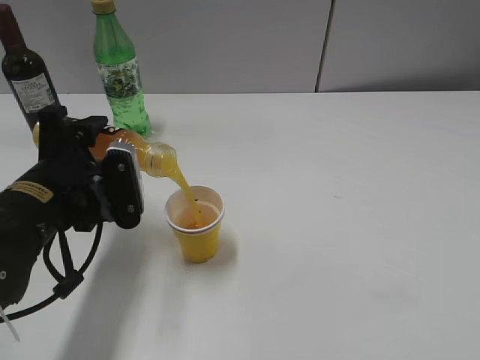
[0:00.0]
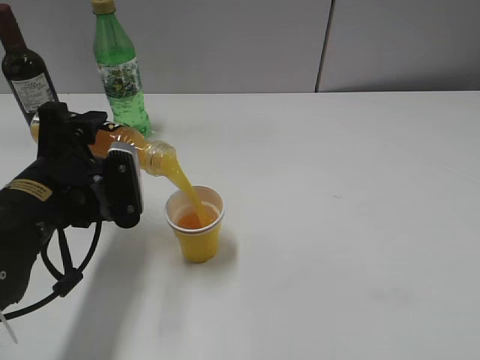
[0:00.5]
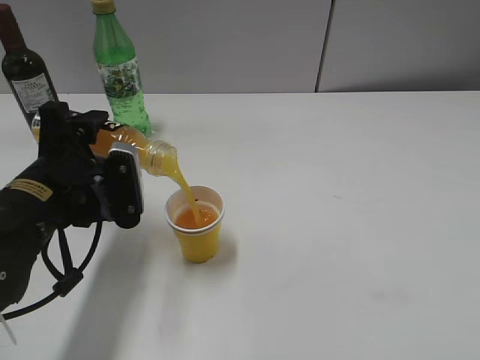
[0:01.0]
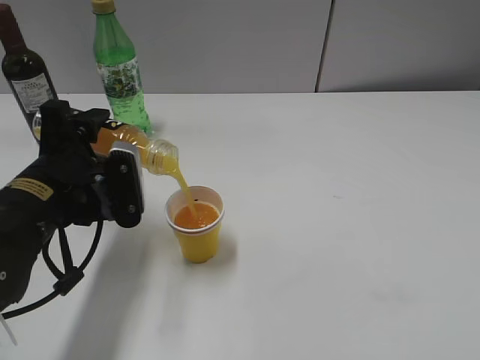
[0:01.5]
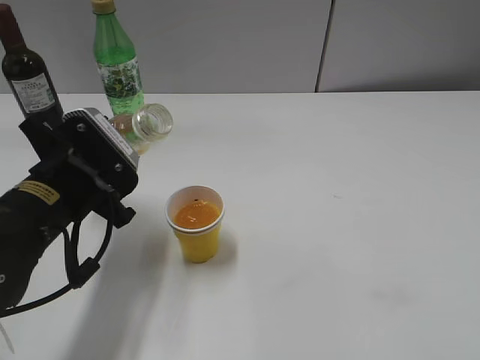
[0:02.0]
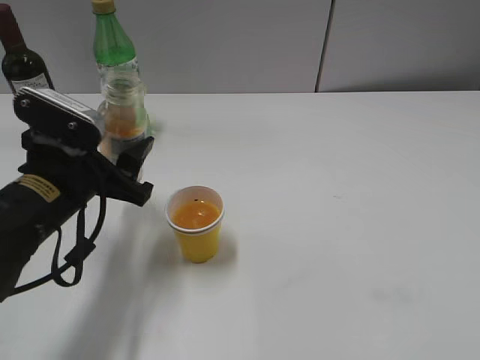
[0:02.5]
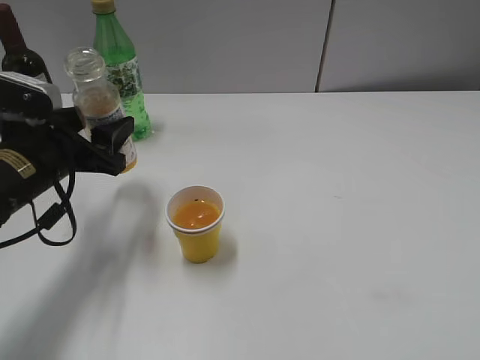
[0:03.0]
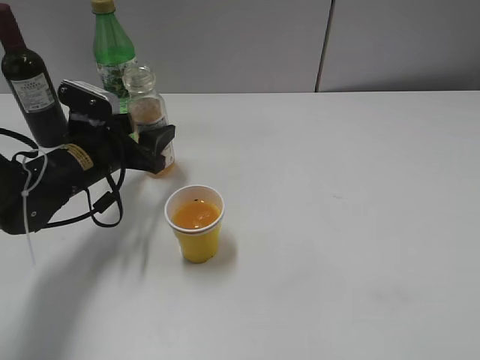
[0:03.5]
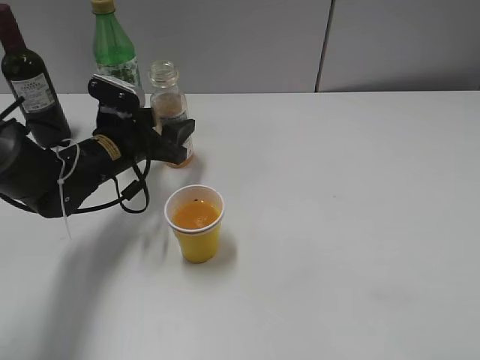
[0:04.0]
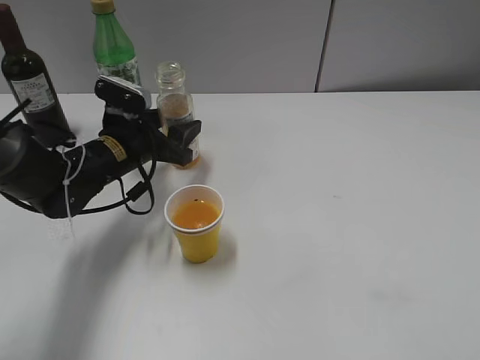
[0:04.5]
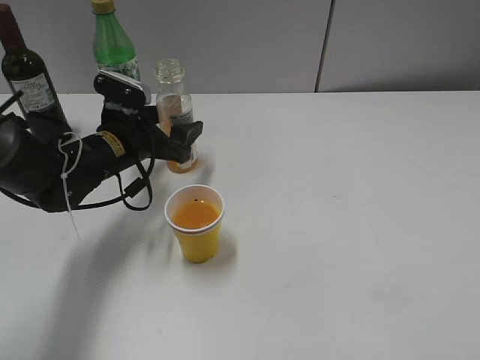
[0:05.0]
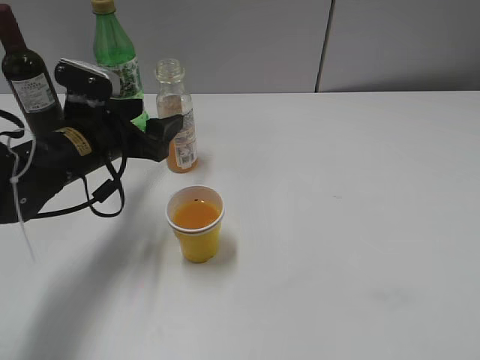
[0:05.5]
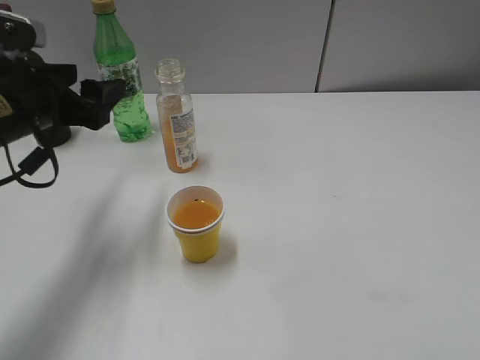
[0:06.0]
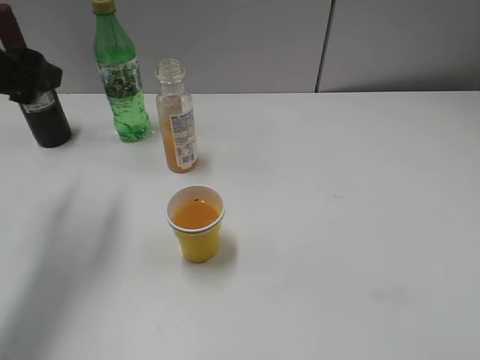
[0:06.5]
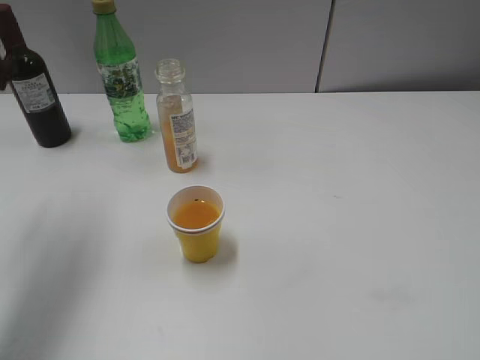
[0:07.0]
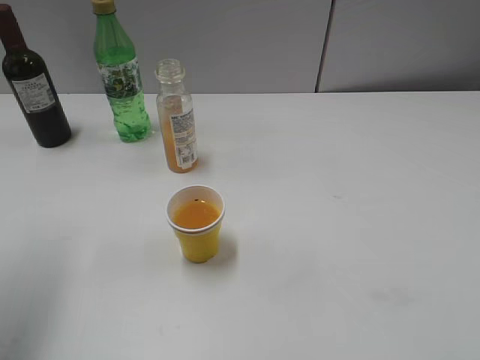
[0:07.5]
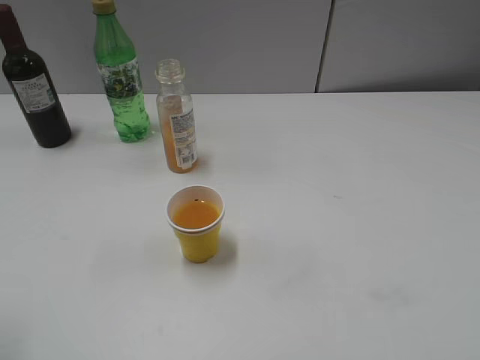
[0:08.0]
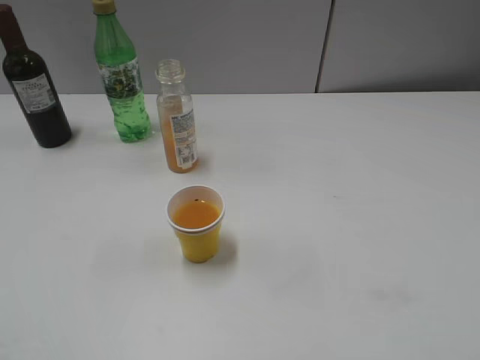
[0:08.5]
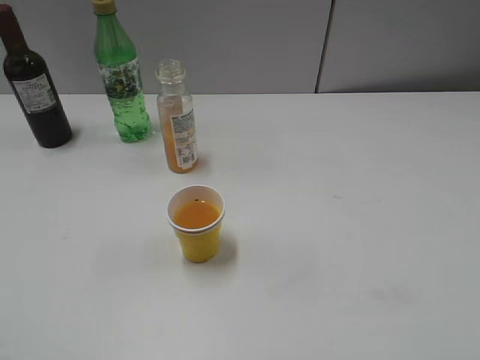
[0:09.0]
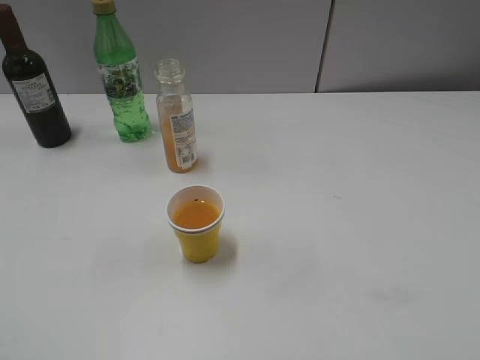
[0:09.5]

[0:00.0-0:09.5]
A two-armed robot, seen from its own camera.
Step, 0:00.0 to 0:02.0: Pour the orange juice from bottle to cup with left gripper.
Step, 0:02.5 to 0:05.0: Place the orange juice bottle on the table with left gripper.
0:02.0 to 0:04.0: The left gripper is displaced forward by approximately 15 cm.
0:04.0 to 0:05.5: The left gripper shifts by some 5 cm, and opens its fingers.
0:05.5 to 0:07.5: The left gripper is displaced upward, backward and to the left by about 25 cm.
0:07.5 to 0:09.5: The left gripper moves backward, roughly 20 cm.

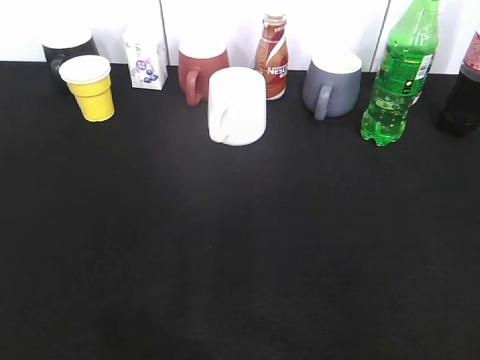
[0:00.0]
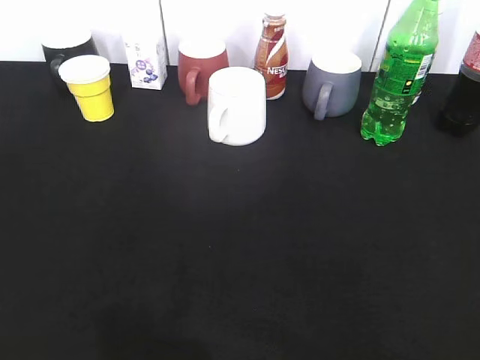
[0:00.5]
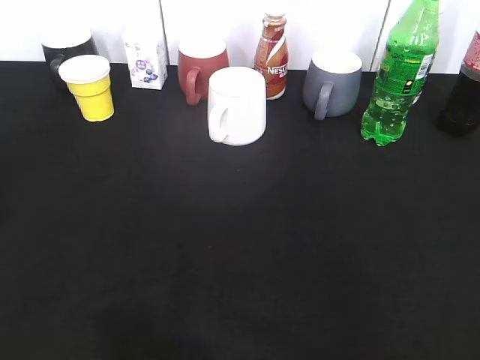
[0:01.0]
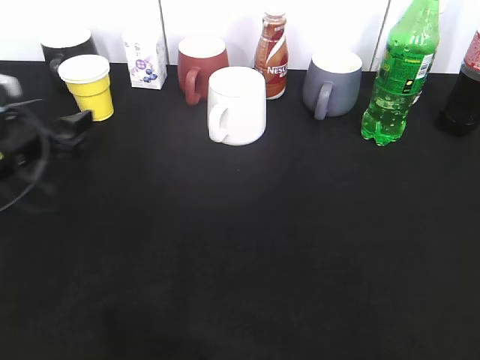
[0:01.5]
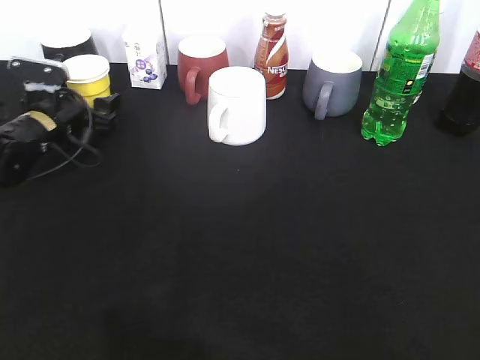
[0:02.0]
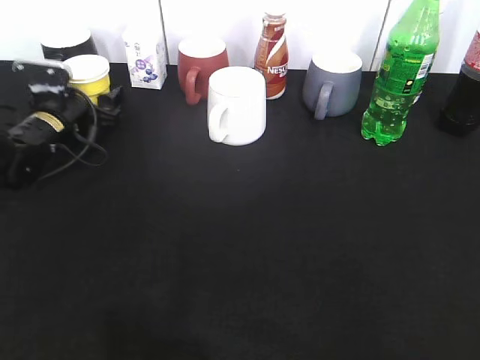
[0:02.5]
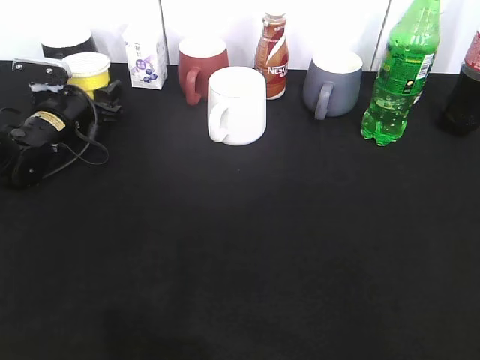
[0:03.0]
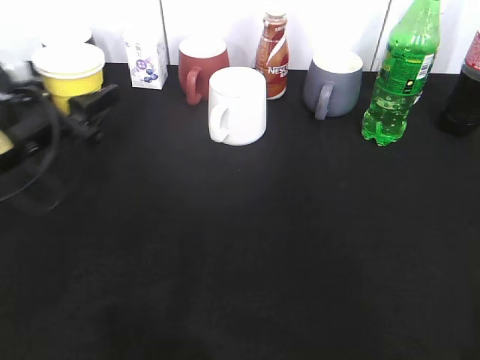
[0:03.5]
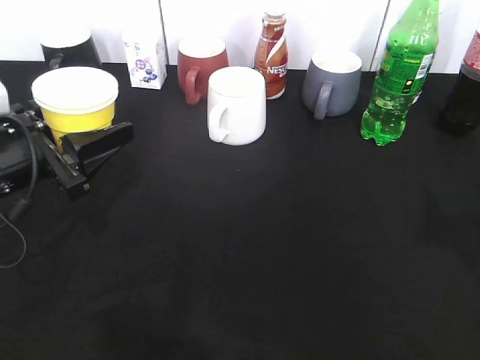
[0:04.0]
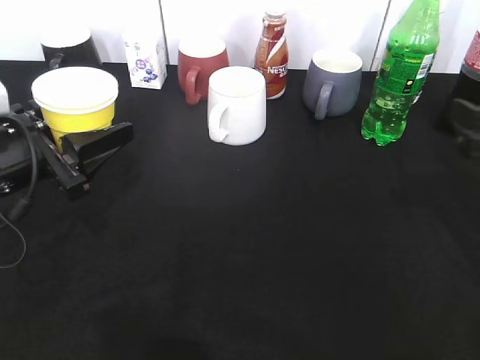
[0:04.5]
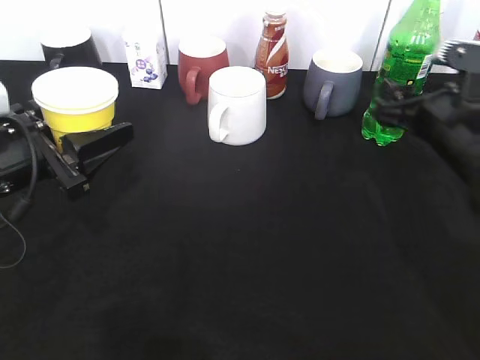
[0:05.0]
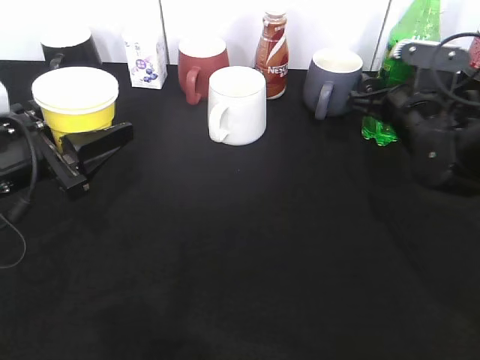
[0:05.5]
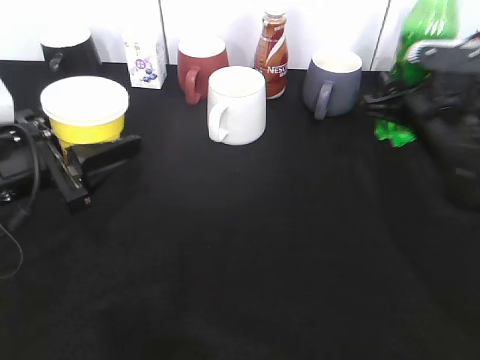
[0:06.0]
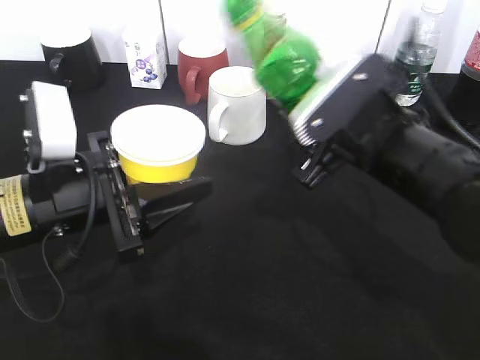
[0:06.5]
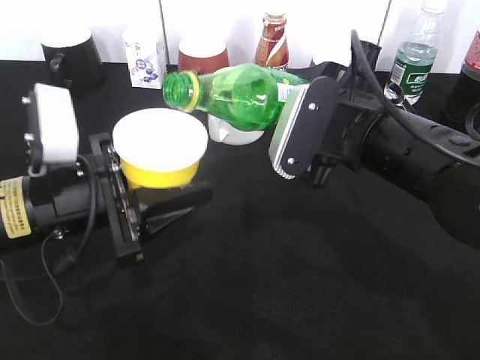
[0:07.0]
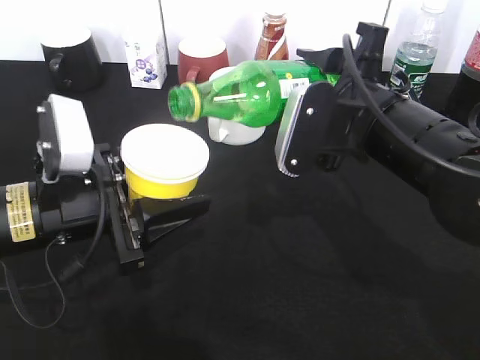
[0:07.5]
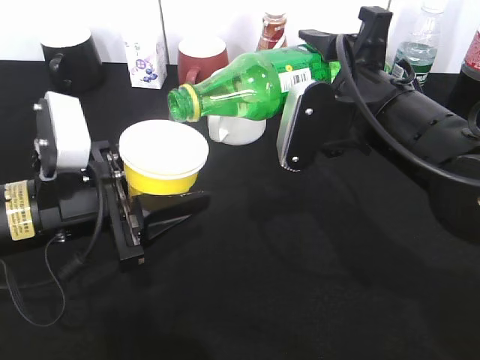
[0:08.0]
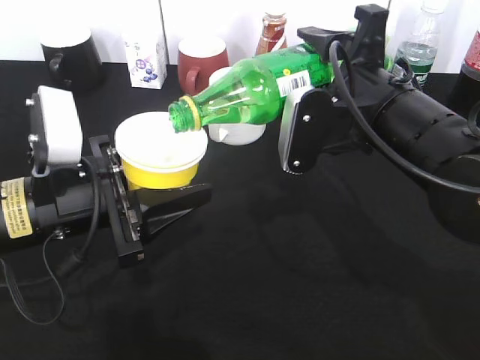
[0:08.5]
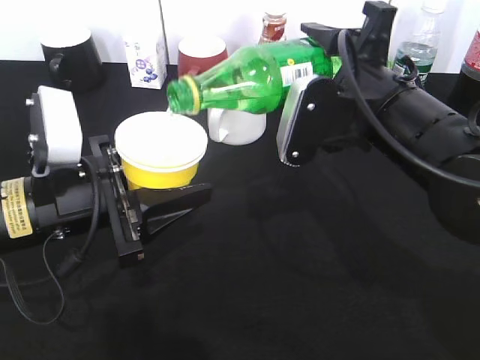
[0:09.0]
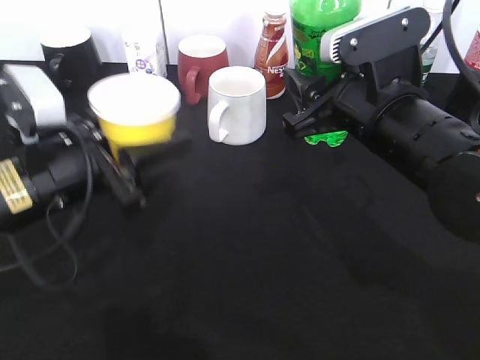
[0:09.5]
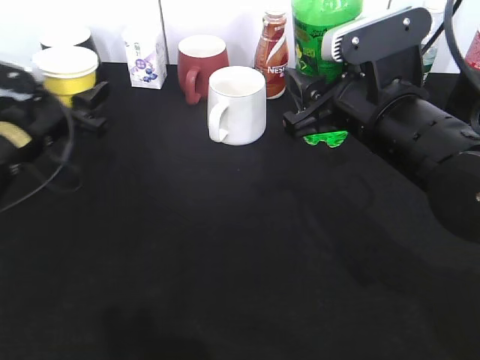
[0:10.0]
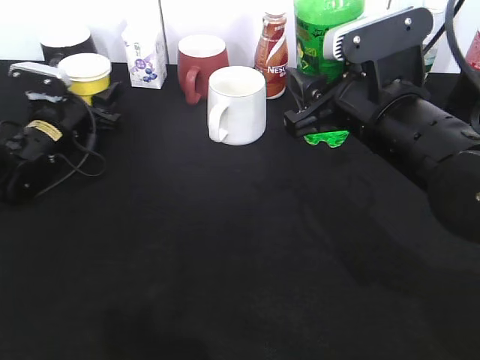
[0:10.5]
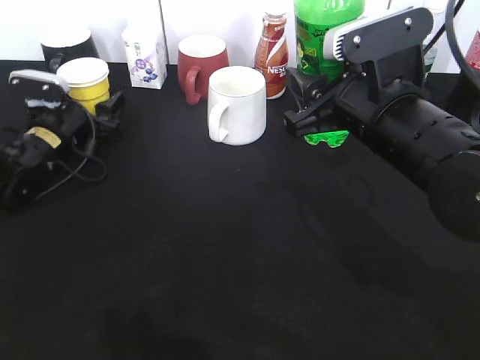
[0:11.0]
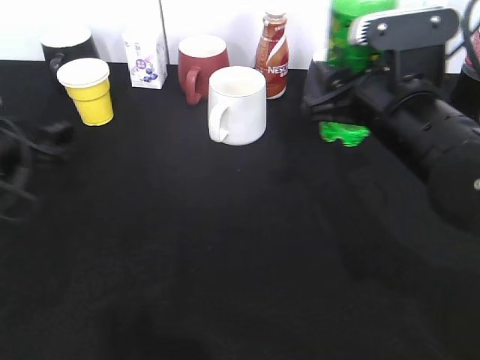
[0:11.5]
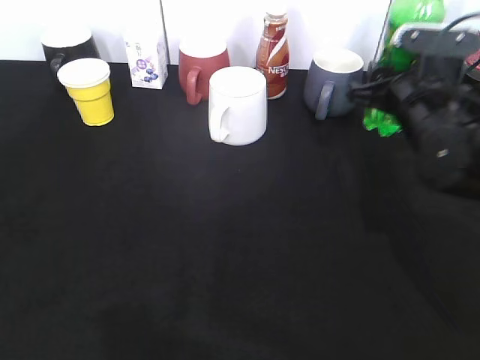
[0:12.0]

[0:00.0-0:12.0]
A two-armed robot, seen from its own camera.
Step, 0:00.0 to 0:02.5: Grasp the yellow paper cup with left gripper.
Step, 0:03.5 to 0:04.0: Lift the yellow paper cup with left gripper.
Step, 0:04.5 to 0:05.5: Grasp the bottle with sprite with right gripper.
Step, 0:06.0 to 0:09.0: Pour the sprite from bottle to cup with right gripper.
0:00.0 to 0:02.0: The left gripper travels forward and downward by some 50 cm.
0:02.0 to 0:04.0: The left gripper heads backward and upward, covering approximately 20 cm, and closes its fingers.
0:04.0 to 0:06.0: The right gripper heads forward, downward and to the left, covering about 20 cm, and closes its fingers.
0:06.0 to 0:08.0: The right gripper heads to the left, backward and upward, covering roughly 15 cm. The left gripper travels to the right by roughly 5 cm.
0:08.0 to 0:10.0: The left gripper travels forward and to the left by roughly 15 cm.
0:10.0 to 0:12.0: The left gripper is displaced backward and upward by about 25 cm, and opens; the right gripper travels forward, to the right and downward by about 10 cm.

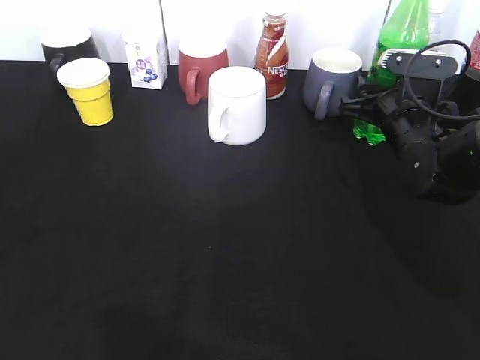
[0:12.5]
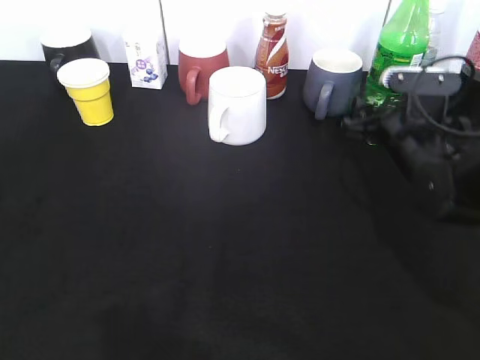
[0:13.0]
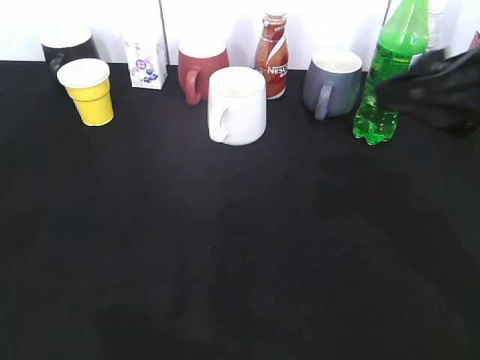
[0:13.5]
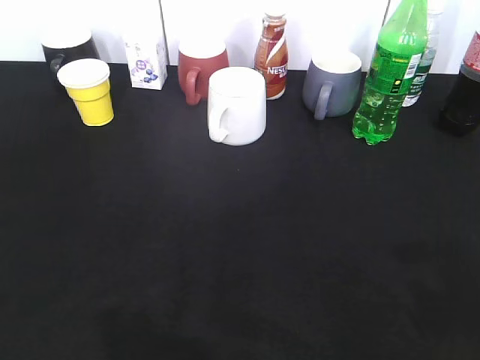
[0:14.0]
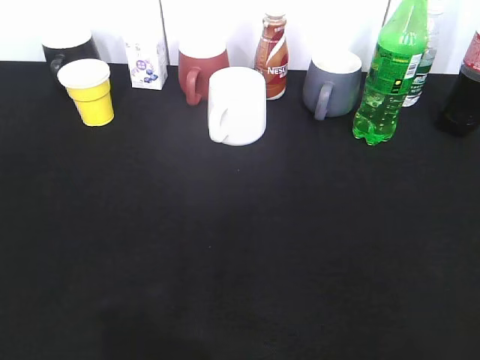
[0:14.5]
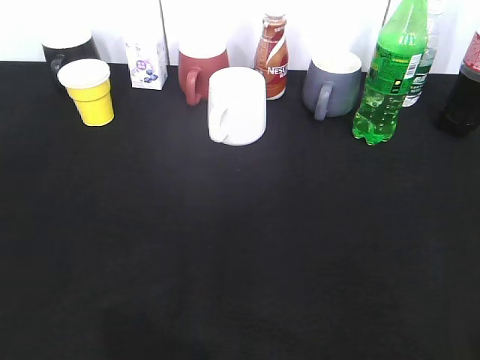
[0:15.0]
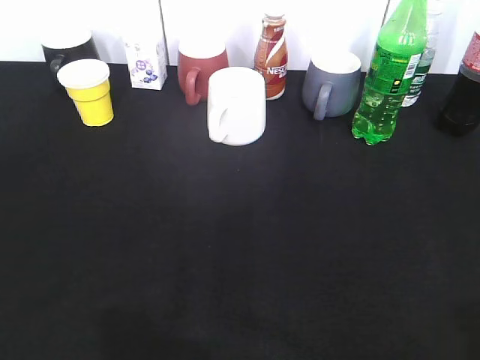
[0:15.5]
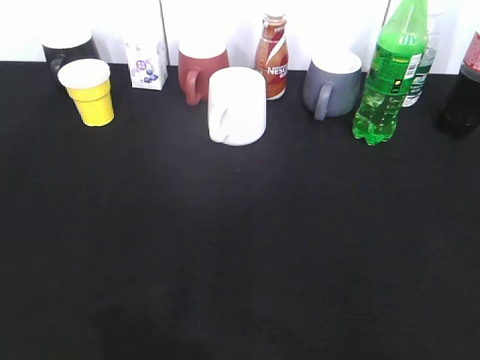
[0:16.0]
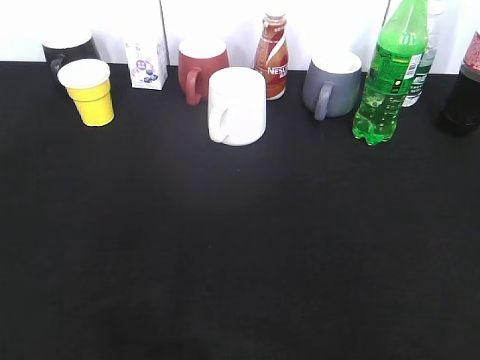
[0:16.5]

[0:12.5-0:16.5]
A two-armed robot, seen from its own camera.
0:12.5 to 0:14.5: The right gripper travels backward by approximately 40 cm, while the left gripper goes approximately 15 cm backward.
